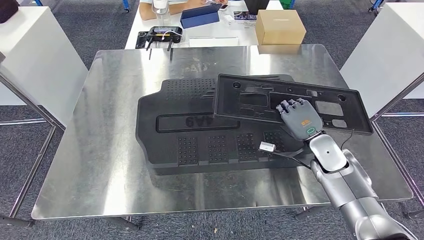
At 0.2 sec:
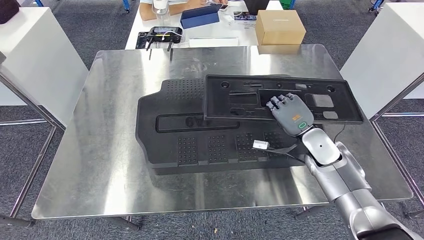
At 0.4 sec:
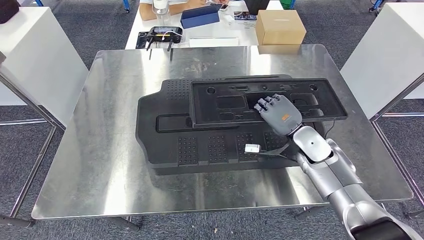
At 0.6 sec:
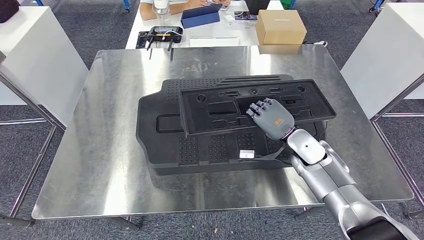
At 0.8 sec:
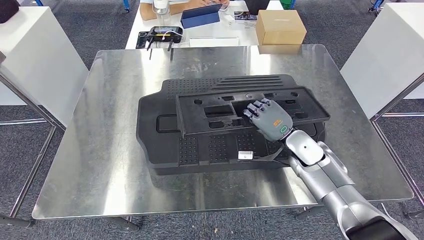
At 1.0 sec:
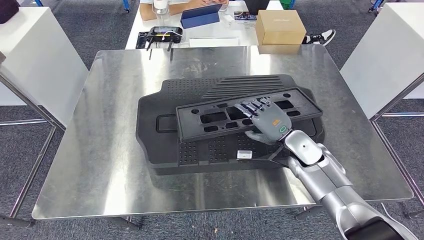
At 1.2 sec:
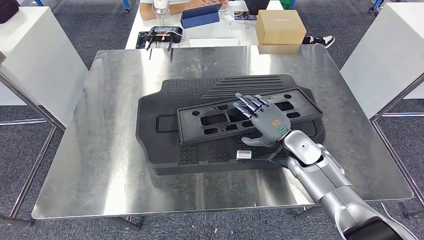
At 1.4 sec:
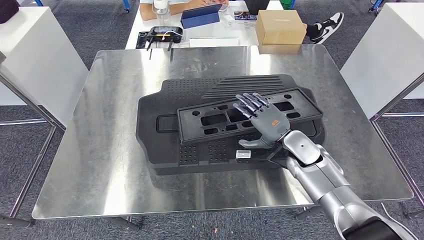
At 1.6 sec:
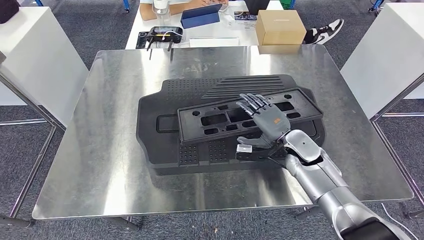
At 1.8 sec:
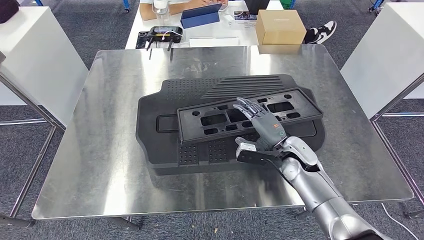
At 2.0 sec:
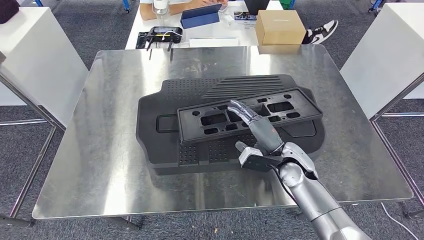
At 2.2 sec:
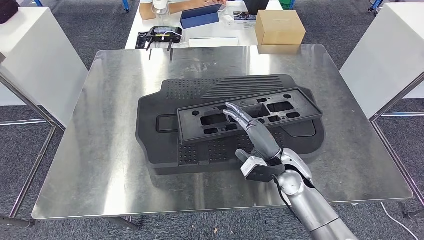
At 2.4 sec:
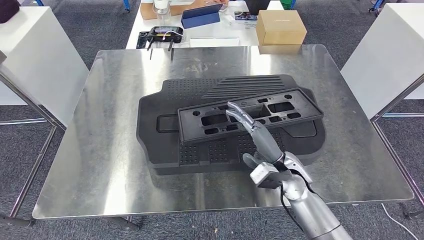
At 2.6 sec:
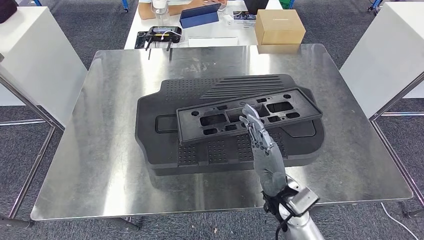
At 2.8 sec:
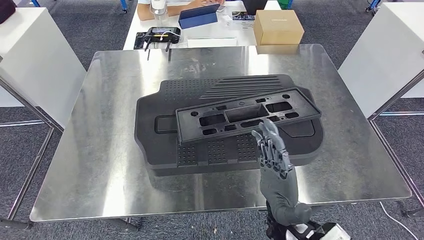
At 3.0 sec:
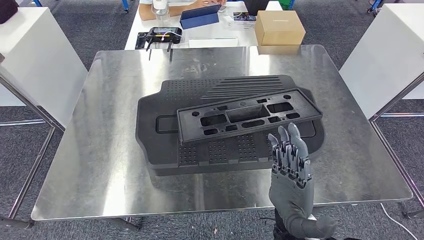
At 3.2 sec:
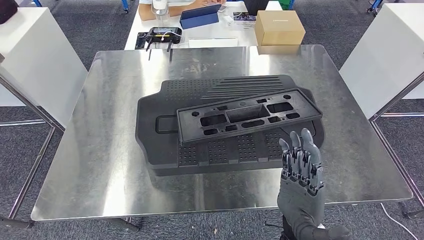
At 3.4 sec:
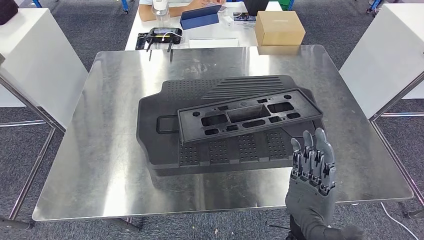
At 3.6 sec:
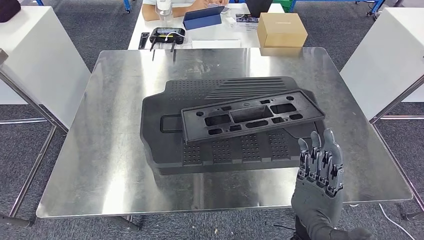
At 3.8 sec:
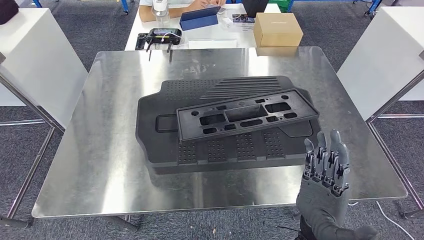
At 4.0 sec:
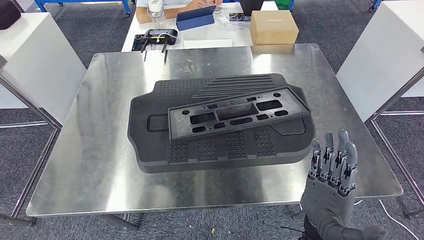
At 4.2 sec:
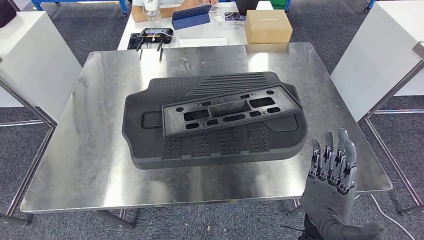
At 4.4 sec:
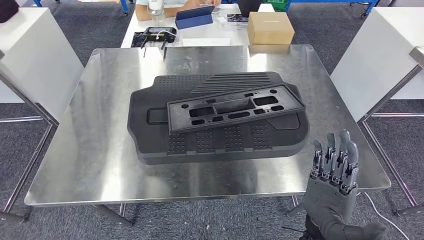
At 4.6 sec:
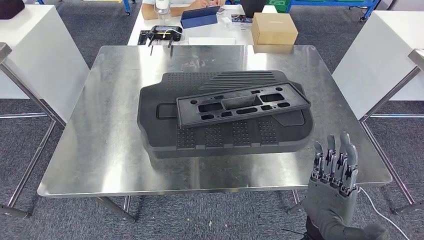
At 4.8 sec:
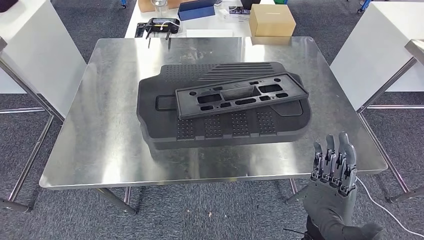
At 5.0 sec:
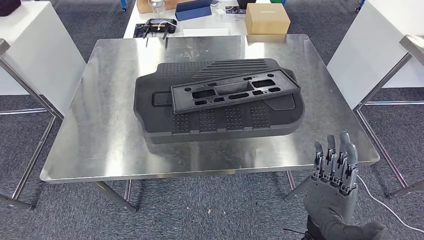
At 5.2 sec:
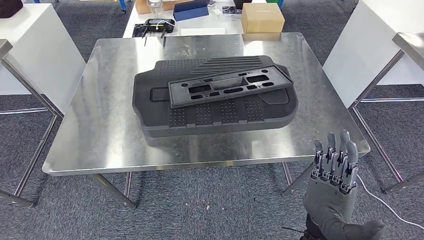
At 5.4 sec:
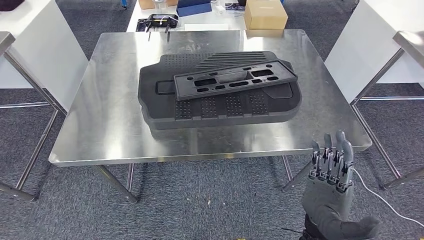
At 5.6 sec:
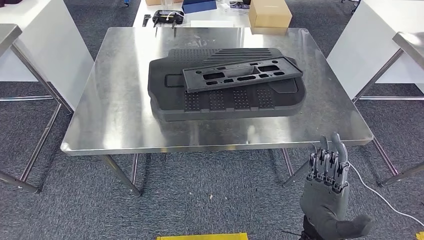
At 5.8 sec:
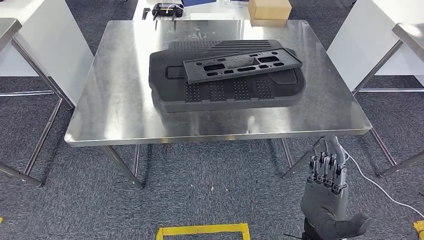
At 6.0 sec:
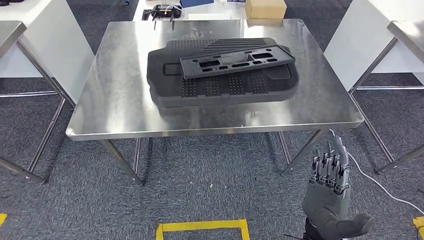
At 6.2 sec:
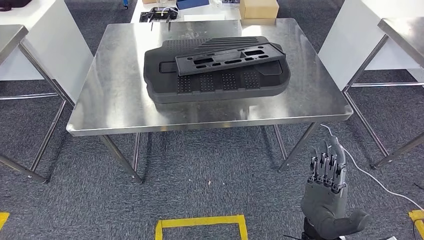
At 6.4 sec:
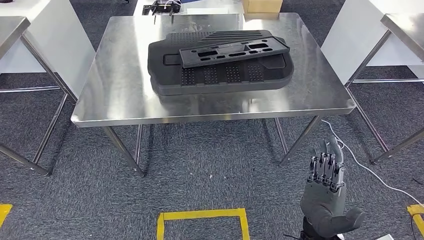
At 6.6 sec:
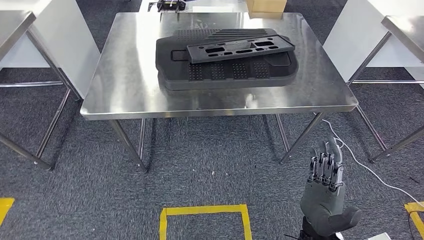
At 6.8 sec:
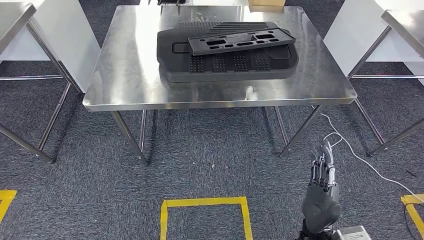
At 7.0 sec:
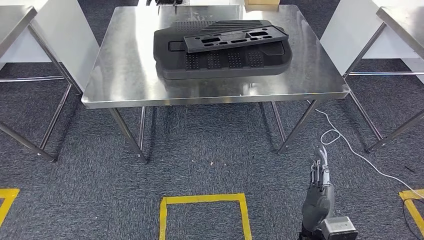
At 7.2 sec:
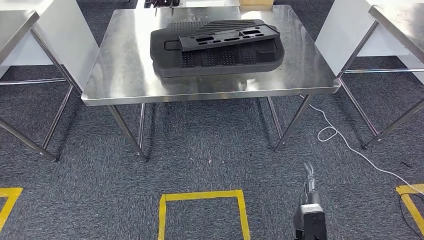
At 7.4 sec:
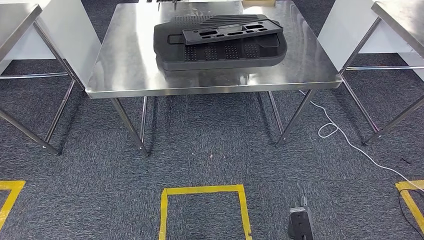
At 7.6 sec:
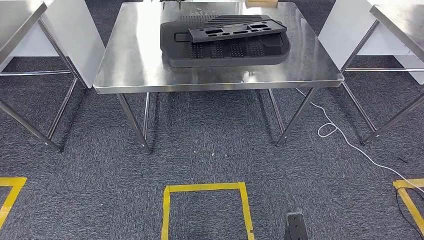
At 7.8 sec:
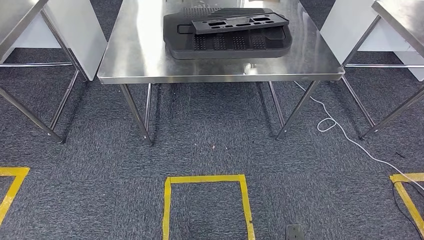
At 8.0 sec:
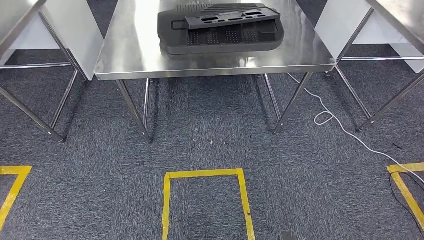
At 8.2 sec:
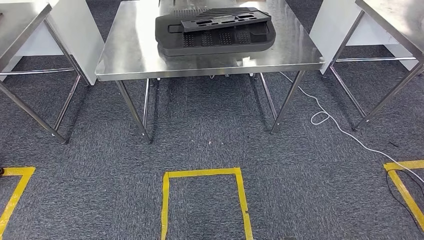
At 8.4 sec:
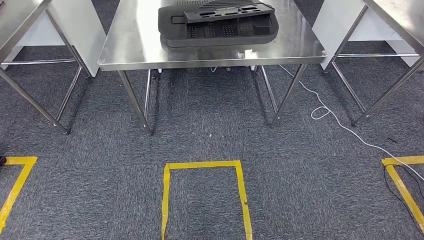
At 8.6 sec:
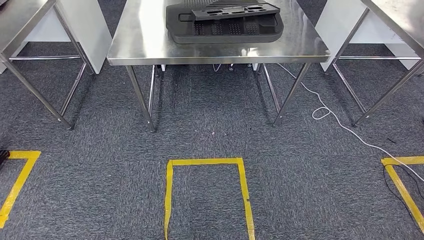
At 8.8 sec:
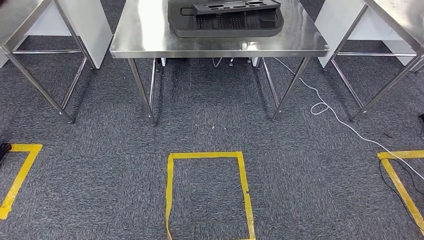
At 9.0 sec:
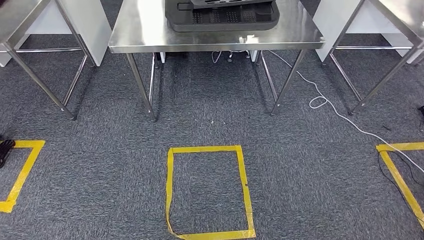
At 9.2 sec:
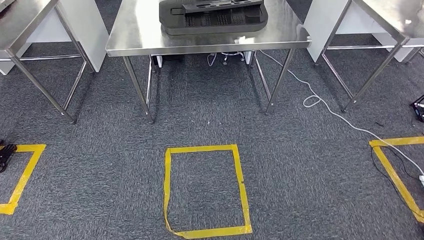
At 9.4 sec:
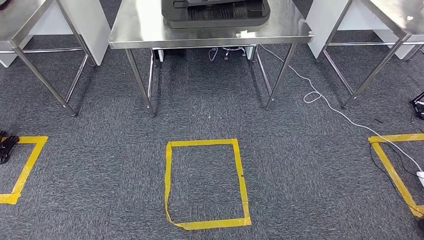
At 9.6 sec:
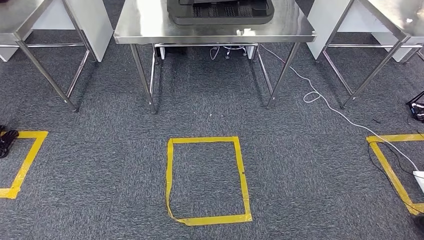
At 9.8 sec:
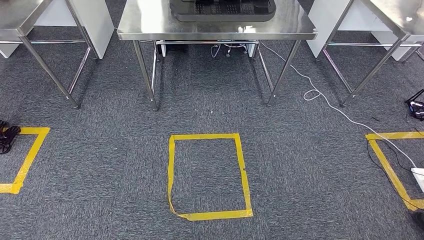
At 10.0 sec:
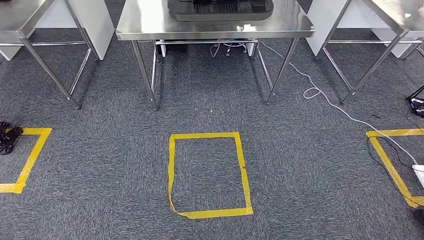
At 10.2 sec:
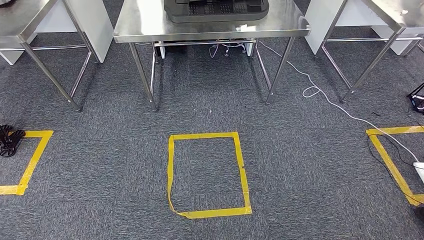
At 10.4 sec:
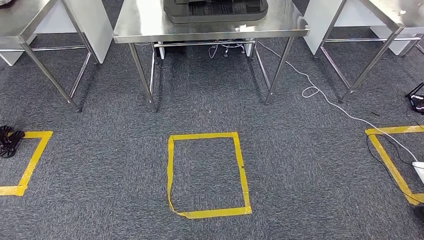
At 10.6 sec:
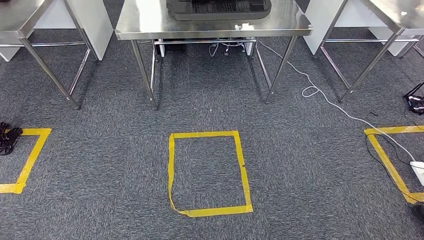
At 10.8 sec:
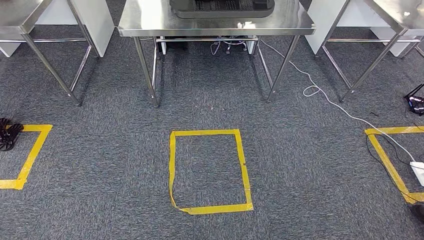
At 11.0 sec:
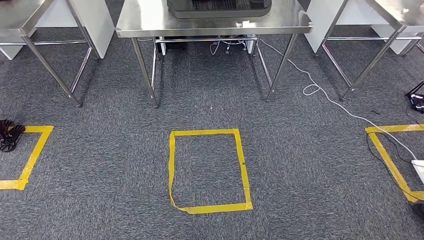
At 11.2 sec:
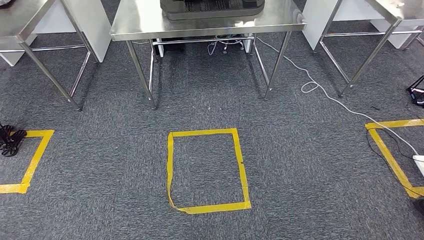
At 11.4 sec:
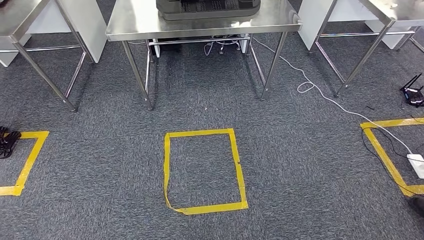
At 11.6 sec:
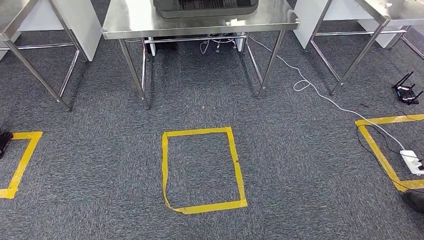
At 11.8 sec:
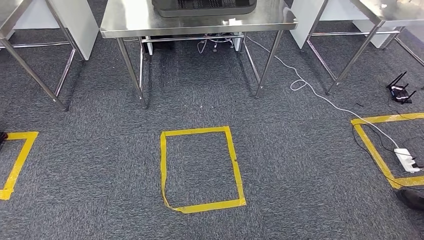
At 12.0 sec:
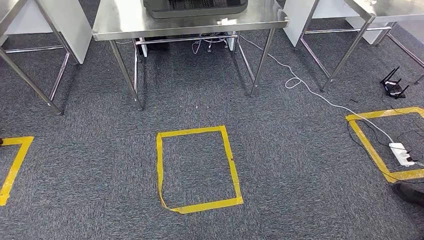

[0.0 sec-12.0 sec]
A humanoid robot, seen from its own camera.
Step, 0.0 sec to 2.6 sec: Insert the large material into the corresponding hole on the workbench.
0.0 sec to 1.6 sec: The right hand moves to the left, roughly 5 cm.
1.6 sec to 3.0 sec: The right hand is displaced backward and to the left by roughly 20 cm.

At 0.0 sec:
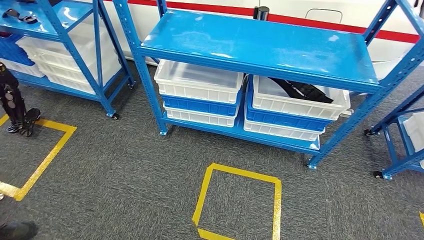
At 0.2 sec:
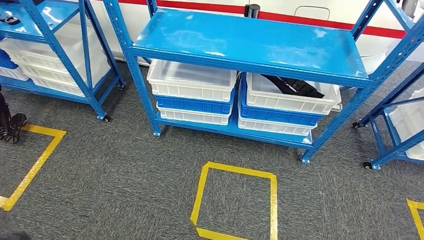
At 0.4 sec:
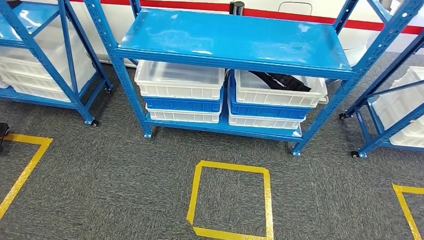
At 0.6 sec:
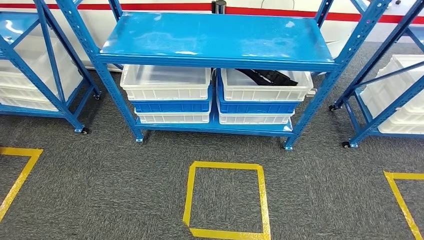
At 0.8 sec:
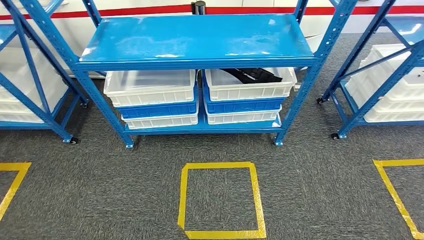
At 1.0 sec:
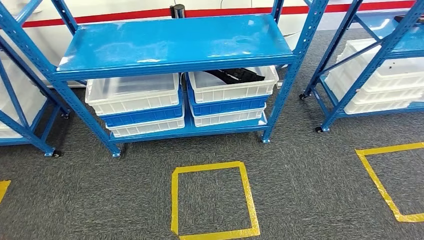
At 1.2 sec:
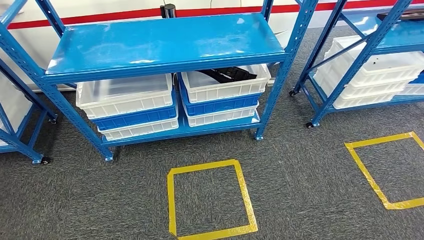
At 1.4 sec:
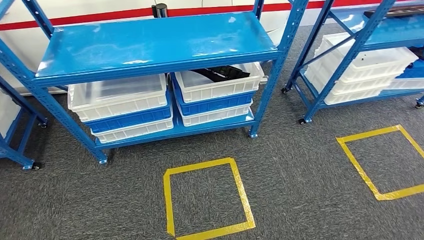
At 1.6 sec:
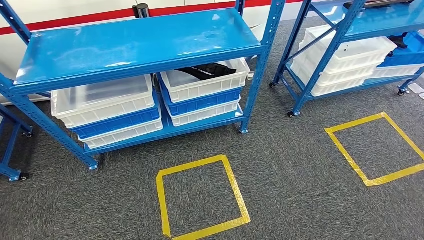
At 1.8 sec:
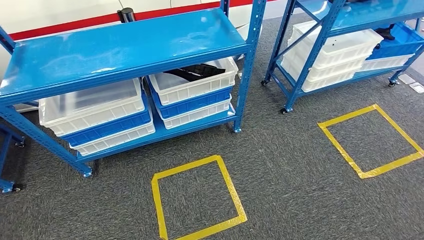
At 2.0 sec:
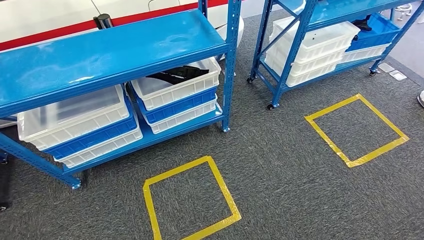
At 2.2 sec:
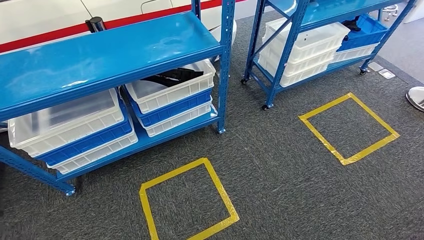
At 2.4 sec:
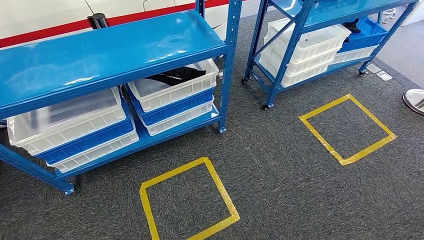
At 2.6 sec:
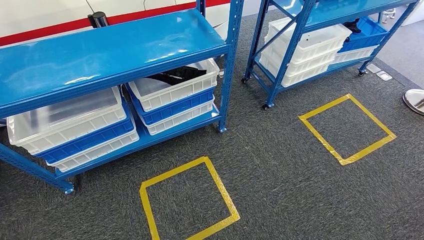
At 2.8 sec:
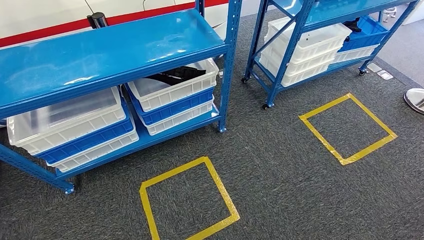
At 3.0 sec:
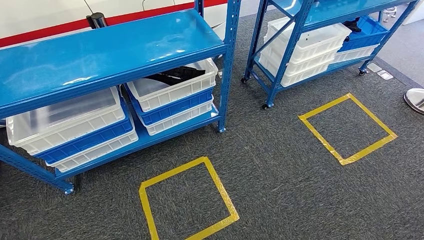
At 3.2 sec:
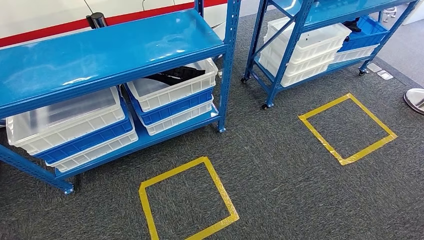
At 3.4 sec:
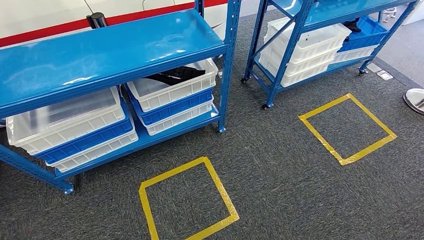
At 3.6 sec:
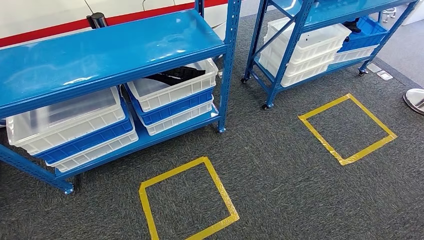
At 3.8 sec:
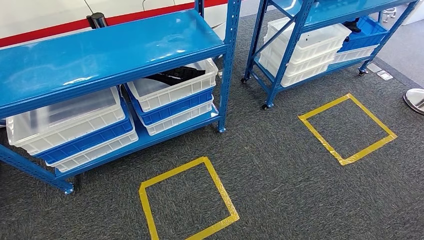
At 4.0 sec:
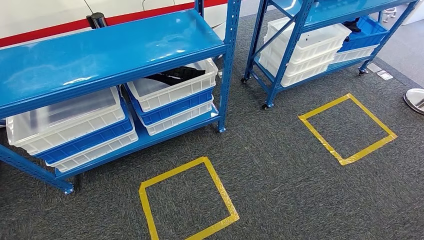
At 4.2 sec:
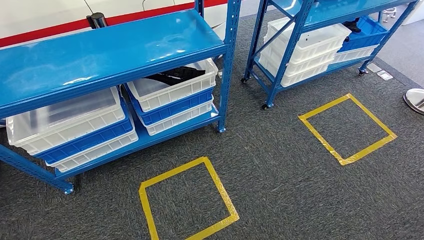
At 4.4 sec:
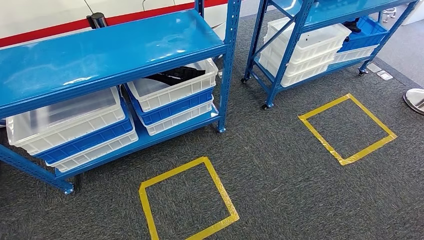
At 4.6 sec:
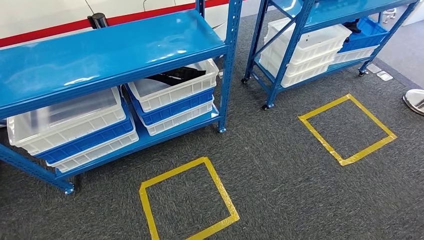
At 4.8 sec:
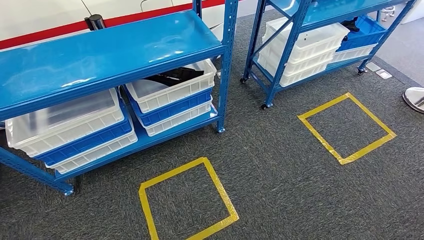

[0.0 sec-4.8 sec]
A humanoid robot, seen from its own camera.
3.2 sec to 4.8 sec: The two hands keep their place.
